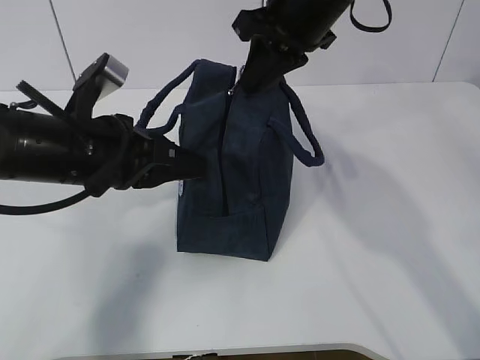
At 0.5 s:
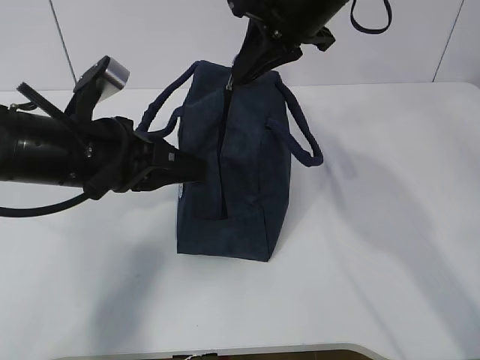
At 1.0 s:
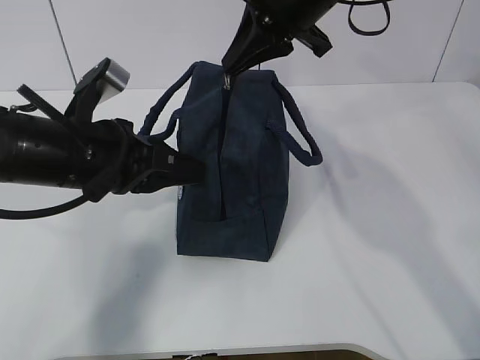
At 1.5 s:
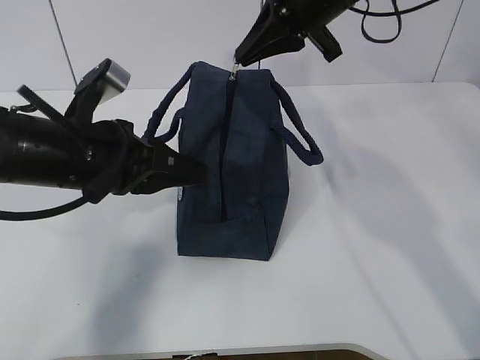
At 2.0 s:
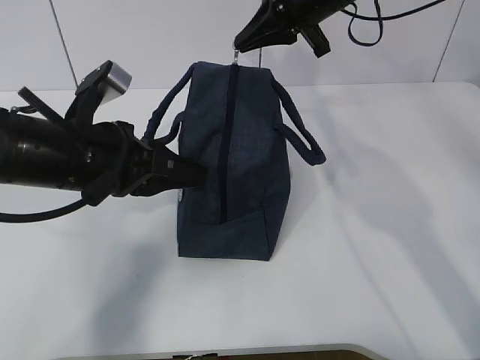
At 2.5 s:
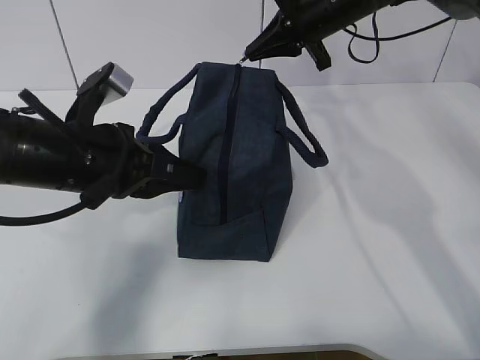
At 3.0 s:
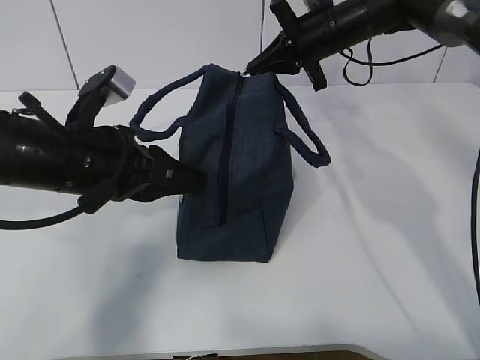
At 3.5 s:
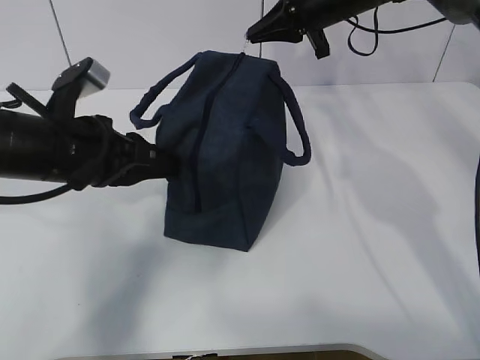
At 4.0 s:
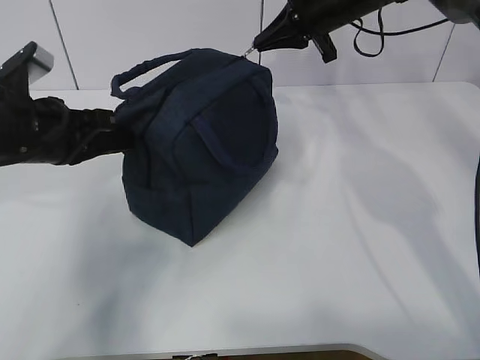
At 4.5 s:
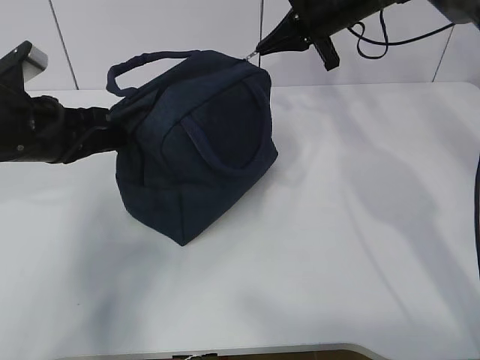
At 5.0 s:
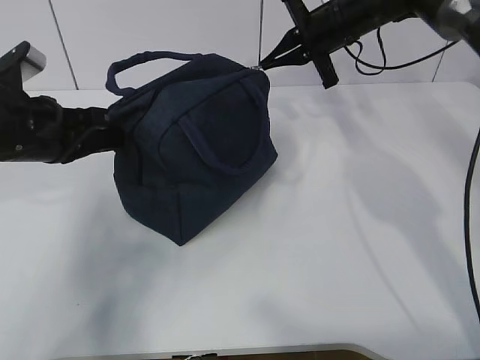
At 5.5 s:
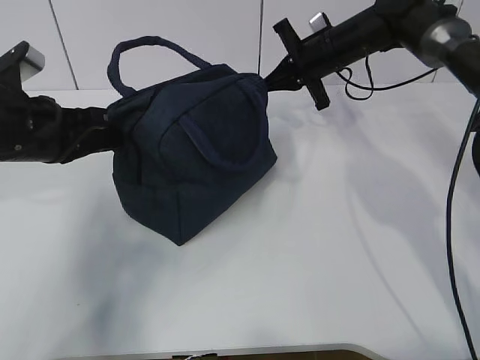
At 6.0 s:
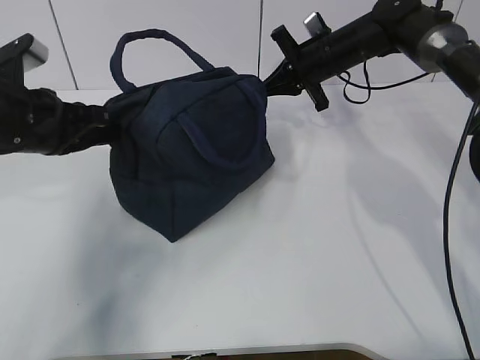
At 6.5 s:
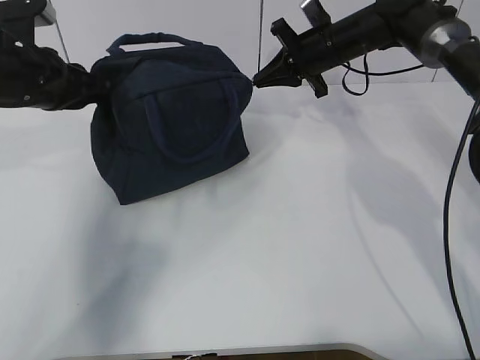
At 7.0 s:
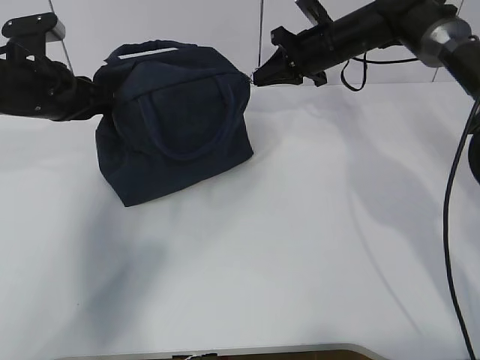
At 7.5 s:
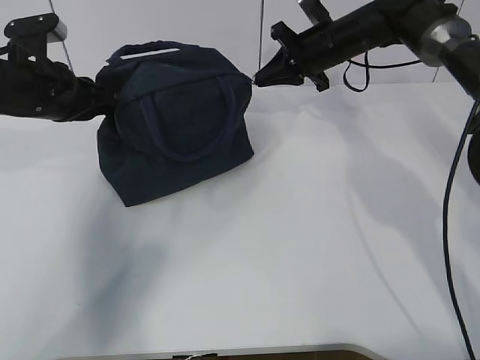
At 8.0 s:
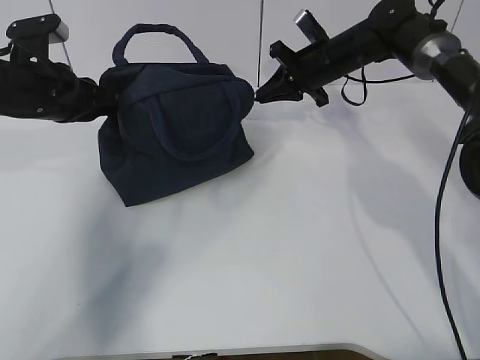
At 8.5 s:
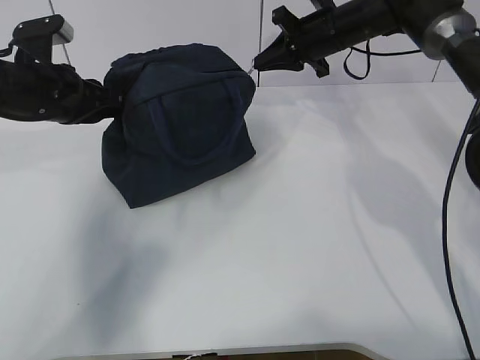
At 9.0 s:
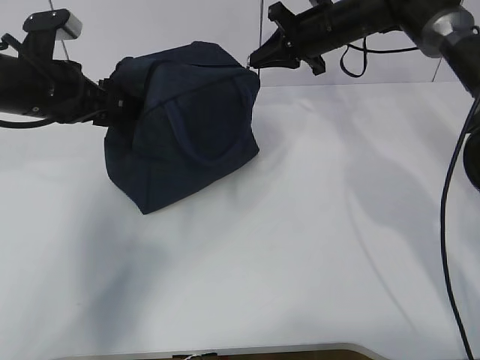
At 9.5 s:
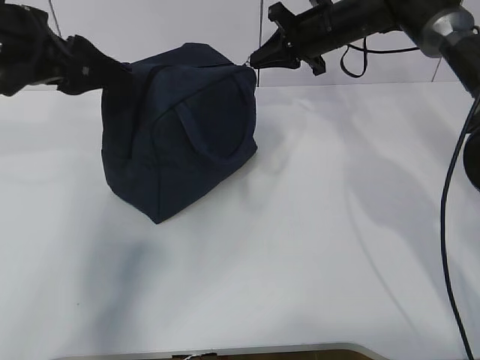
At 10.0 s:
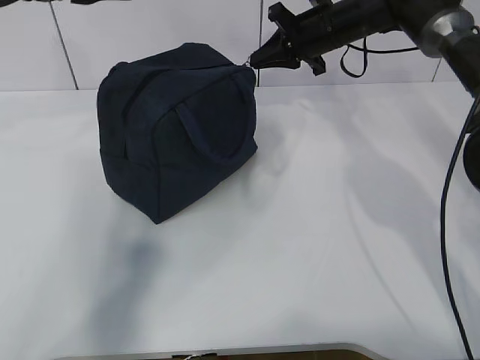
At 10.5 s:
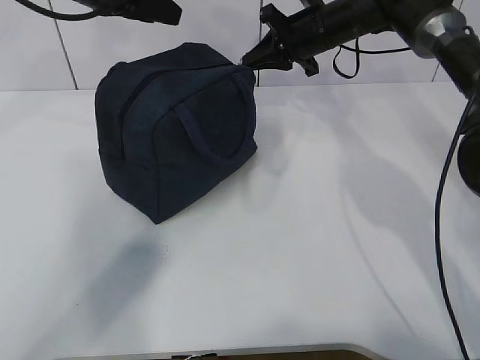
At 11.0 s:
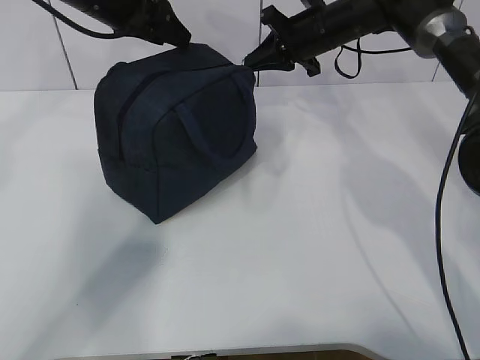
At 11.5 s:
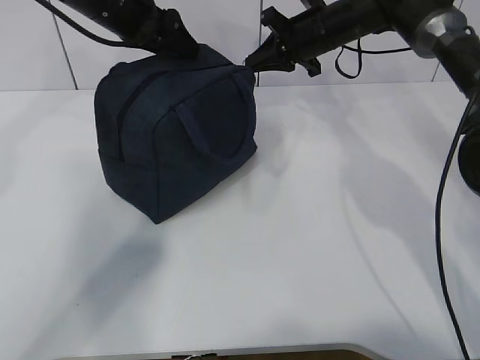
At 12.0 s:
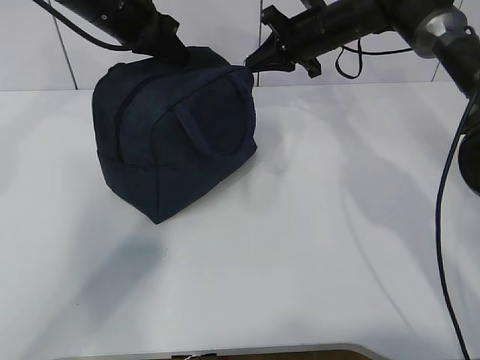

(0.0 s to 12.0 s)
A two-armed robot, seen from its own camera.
0.0 s - 2.0 s: The right gripper is displaced forward by about 5 cm.
2.0 s - 4.0 s: The right gripper travels forward by about 5 cm. Meanwhile the left gripper shifts some 5 cm to the left.
4.0 s - 6.0 s: The right gripper goes approximately 10 cm downward.
6.0 s - 8.0 s: The left gripper shifts approximately 5 cm forward.
8.0 s - 10.0 s: The right gripper moves roughly 5 cm. The left gripper travels upward by roughly 15 cm, and opens.
10.0 s - 12.0 s: The left gripper travels forward, downward and to the right by roughly 15 cm, and closes up.

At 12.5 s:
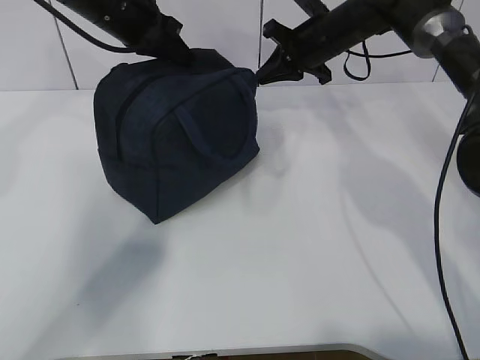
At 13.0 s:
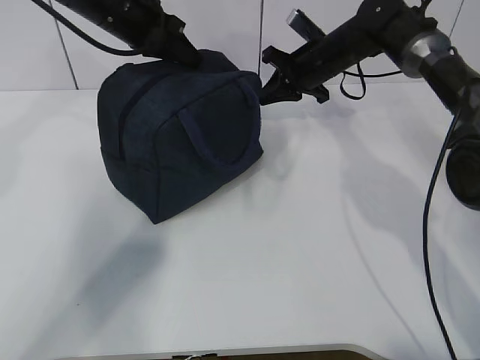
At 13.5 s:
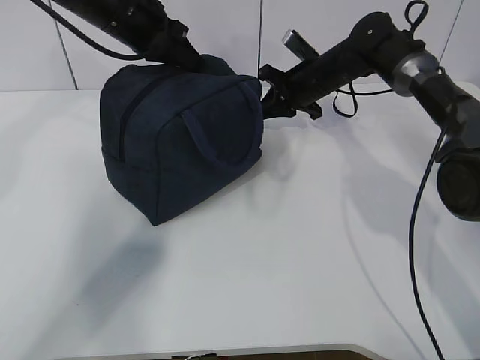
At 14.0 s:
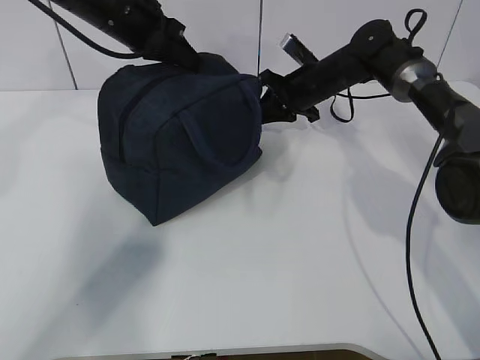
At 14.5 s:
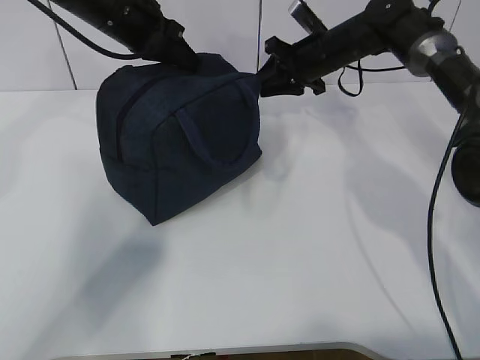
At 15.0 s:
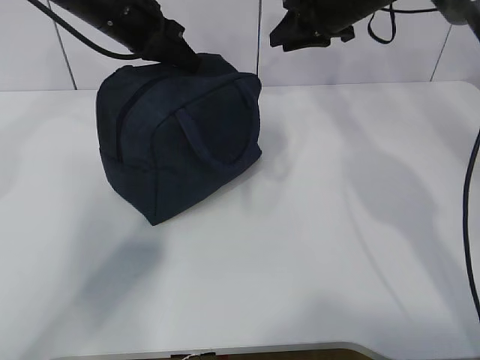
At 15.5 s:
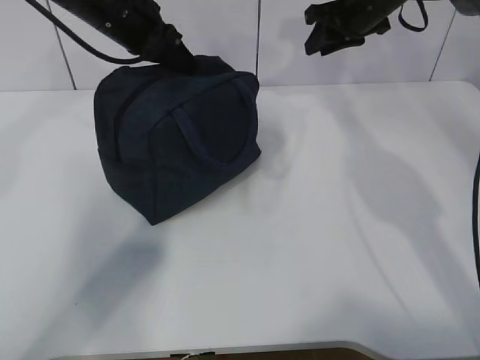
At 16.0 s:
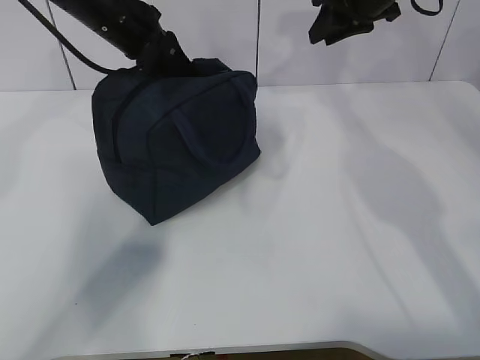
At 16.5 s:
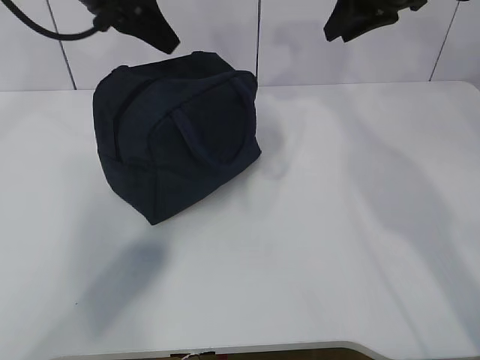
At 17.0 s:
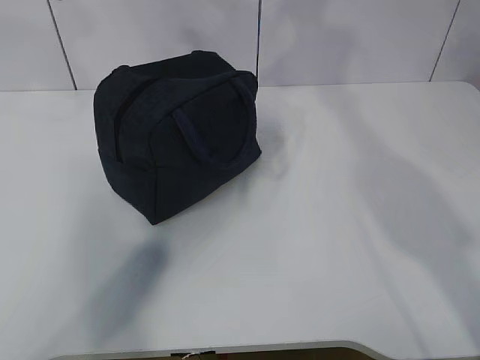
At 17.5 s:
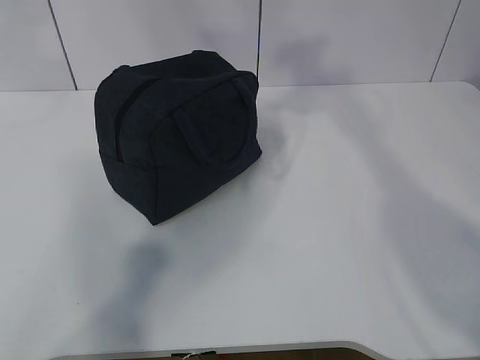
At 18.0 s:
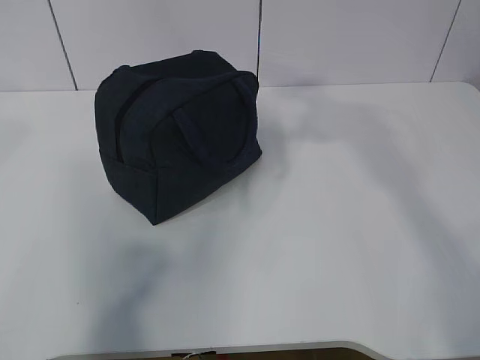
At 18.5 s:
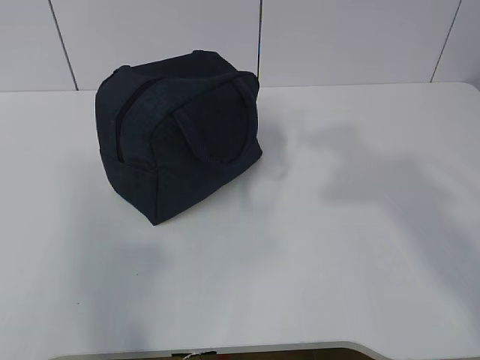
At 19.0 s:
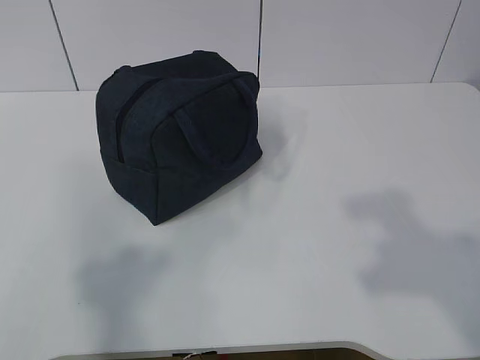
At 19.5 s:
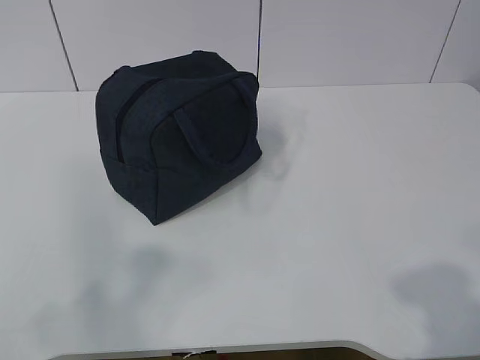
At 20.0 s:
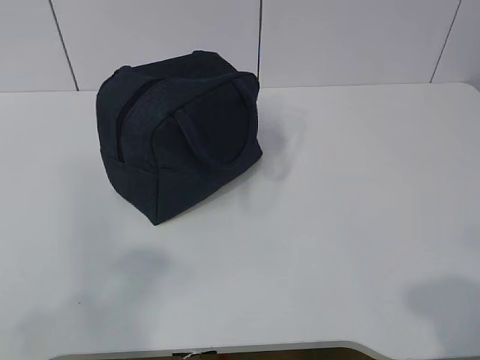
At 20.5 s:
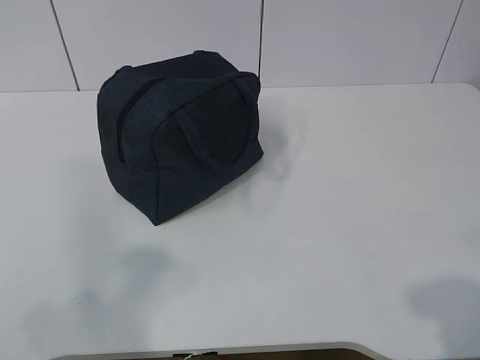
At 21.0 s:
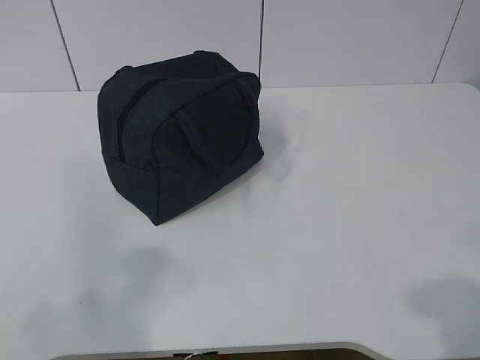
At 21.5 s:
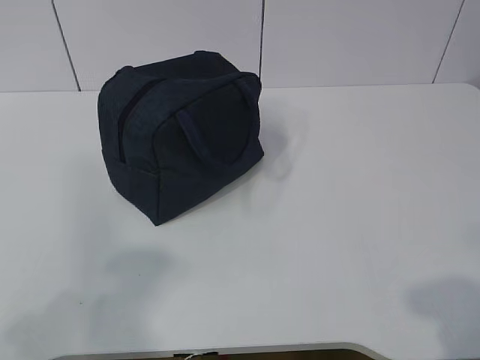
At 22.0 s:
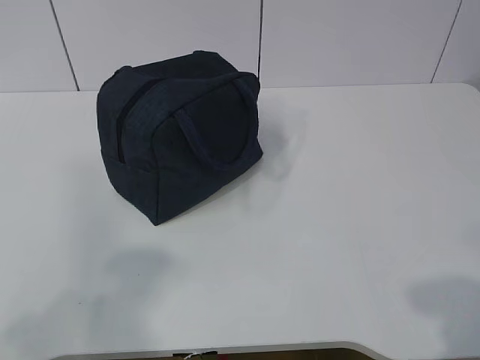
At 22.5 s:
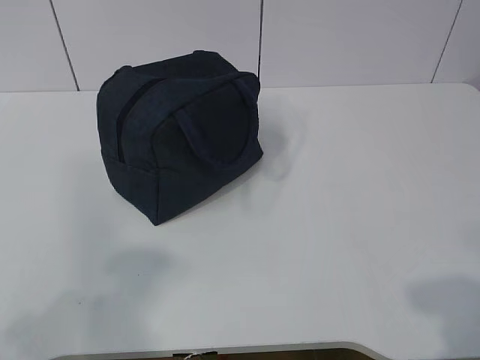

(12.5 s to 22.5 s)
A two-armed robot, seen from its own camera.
12.5 s - 14.5 s: The right gripper opens up.
14.5 s - 16.5 s: The right gripper goes some 15 cm upward and backward, while the left gripper is displaced upward by roughly 5 cm, and opens its fingers.
16.5 s - 18.5 s: The grippers both shift backward by roughly 35 cm.
18.5 s - 20.5 s: The two grippers go about 20 cm downward and backward.

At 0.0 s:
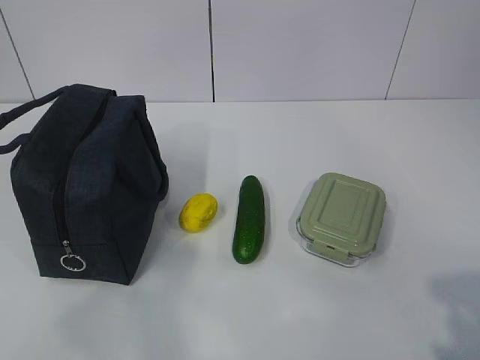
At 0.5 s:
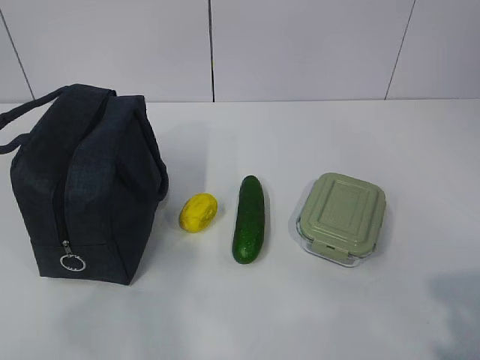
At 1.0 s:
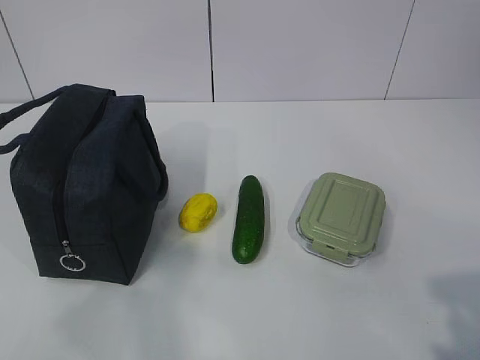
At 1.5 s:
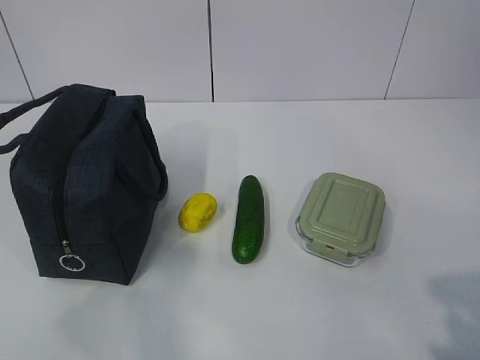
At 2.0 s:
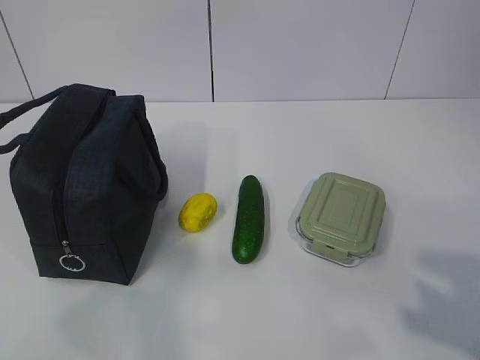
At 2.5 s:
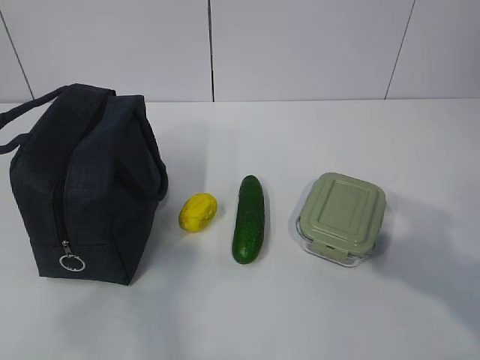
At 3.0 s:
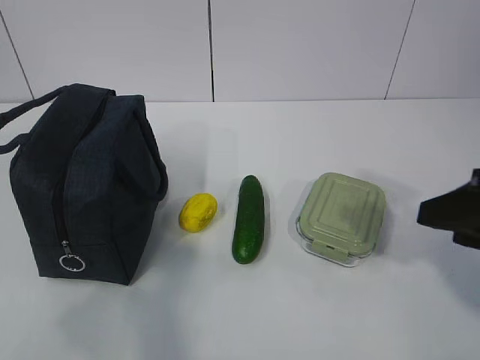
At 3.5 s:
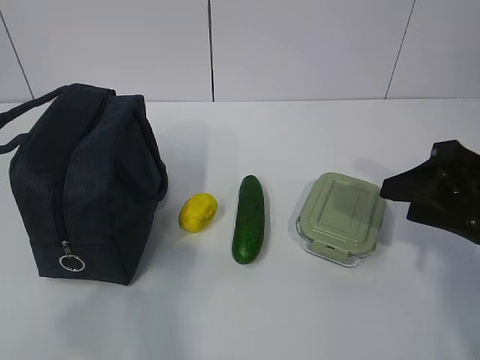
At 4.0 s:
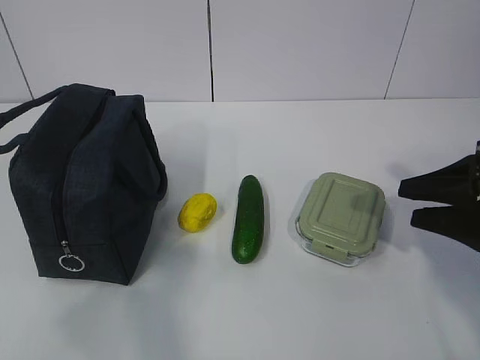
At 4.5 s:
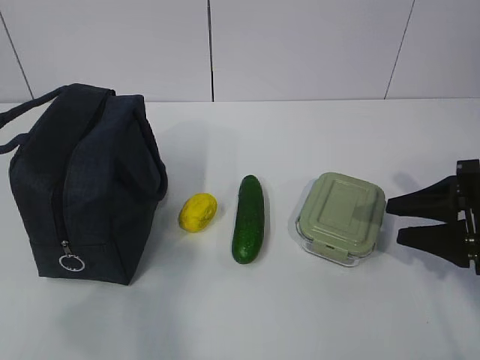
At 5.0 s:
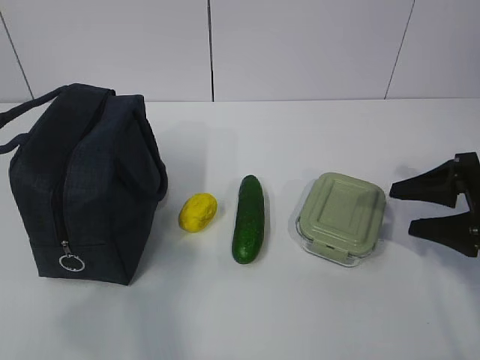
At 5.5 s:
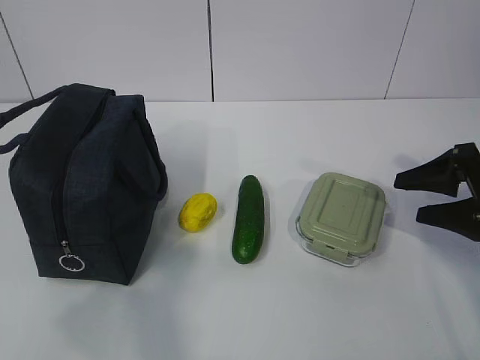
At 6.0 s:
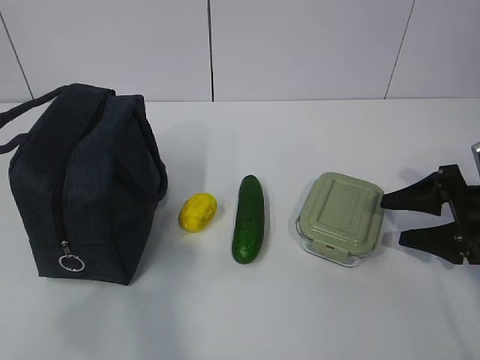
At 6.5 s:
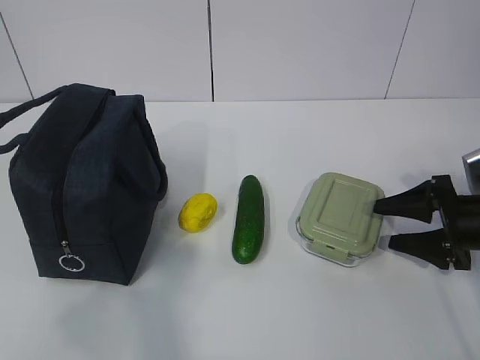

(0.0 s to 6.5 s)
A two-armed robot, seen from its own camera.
2.0 s - 4.5 s: The right gripper goes about 30 cm forward and downward.
4.5 s - 6.5 s: The right gripper shifts some 5 cm downward.
